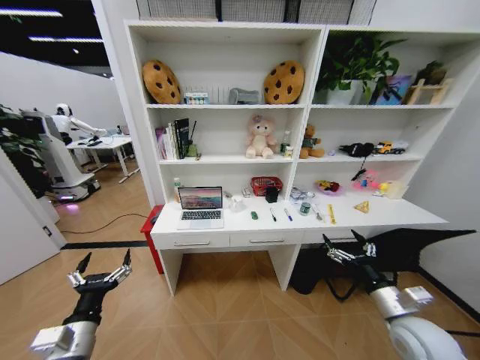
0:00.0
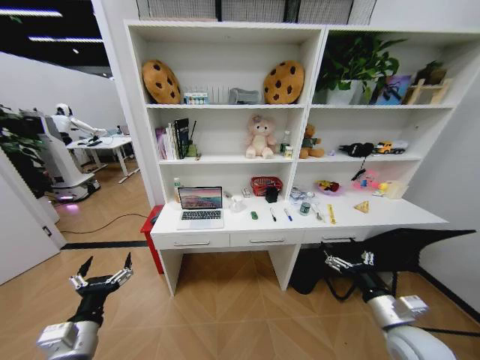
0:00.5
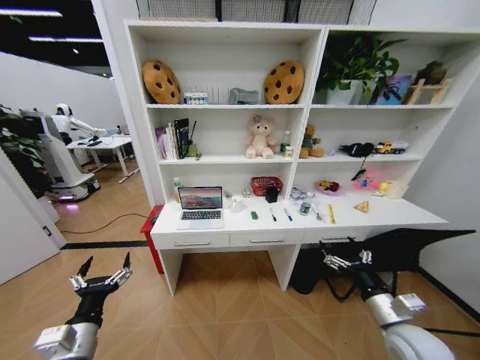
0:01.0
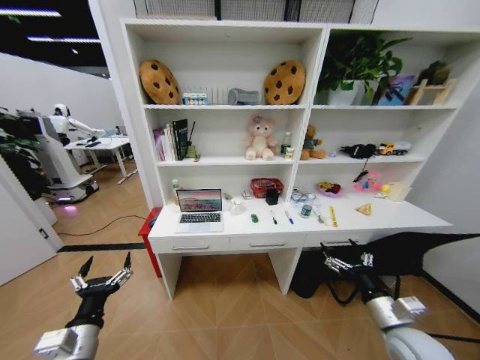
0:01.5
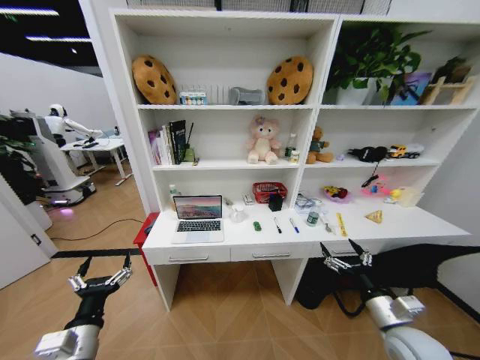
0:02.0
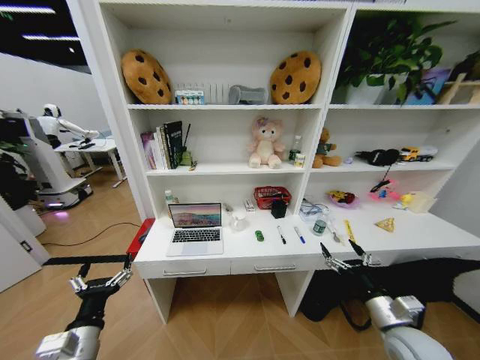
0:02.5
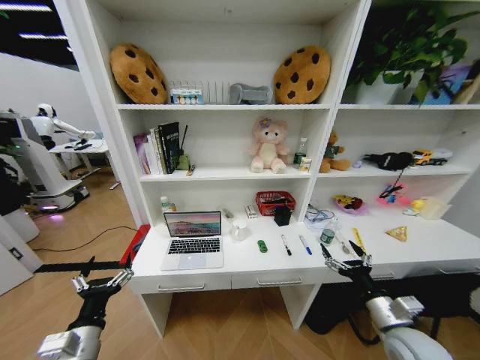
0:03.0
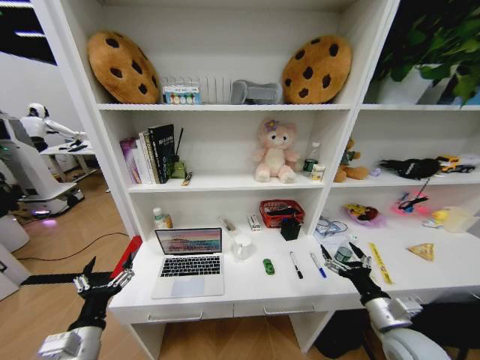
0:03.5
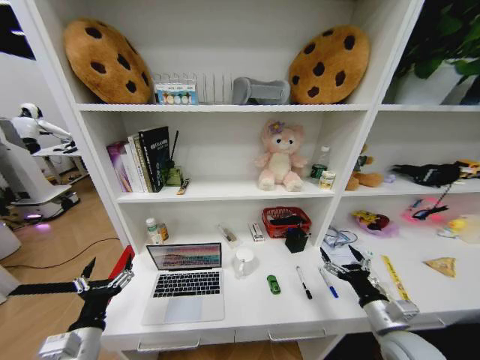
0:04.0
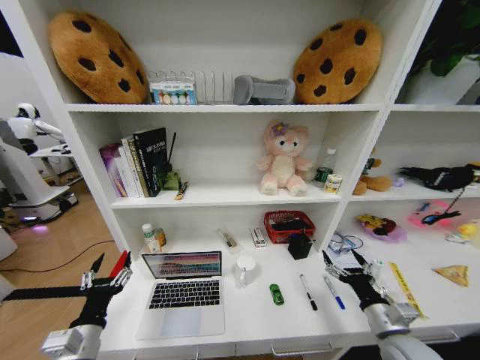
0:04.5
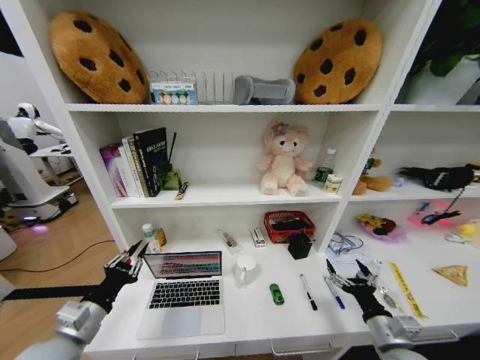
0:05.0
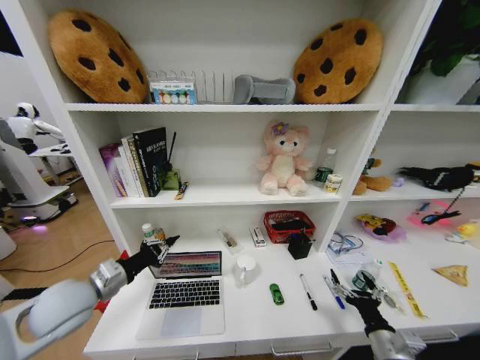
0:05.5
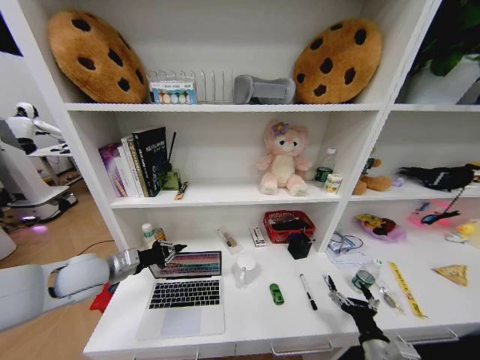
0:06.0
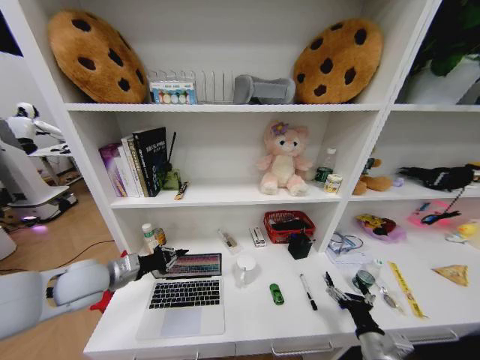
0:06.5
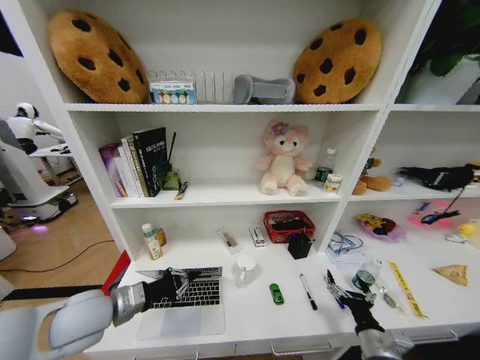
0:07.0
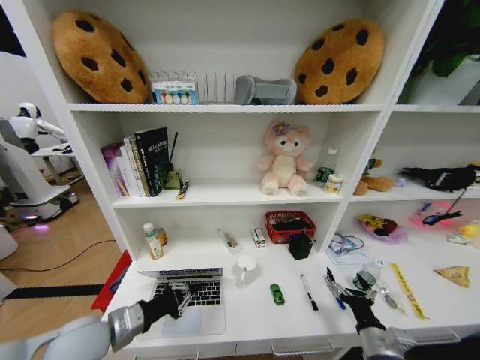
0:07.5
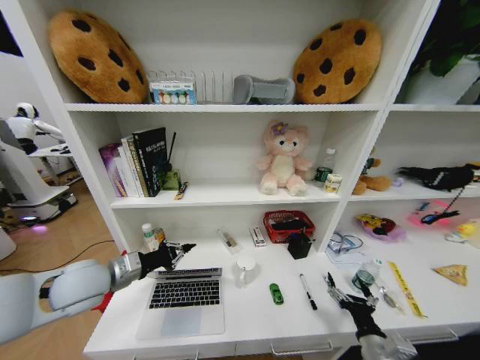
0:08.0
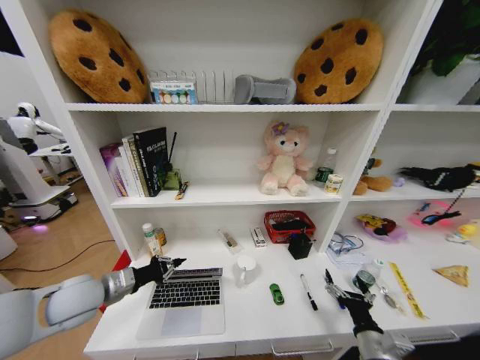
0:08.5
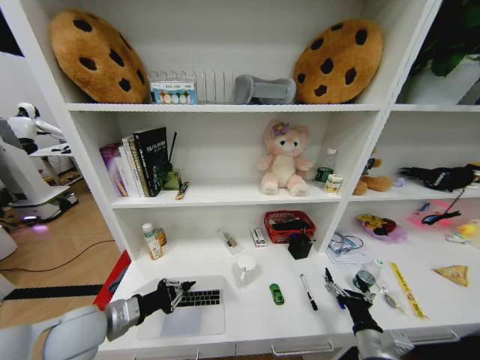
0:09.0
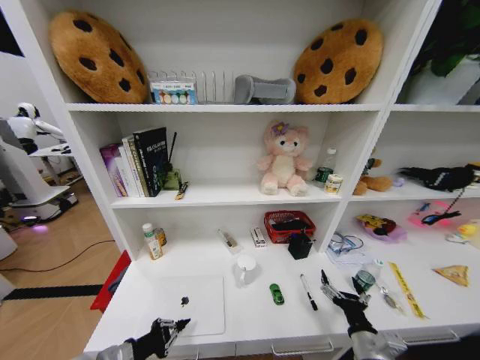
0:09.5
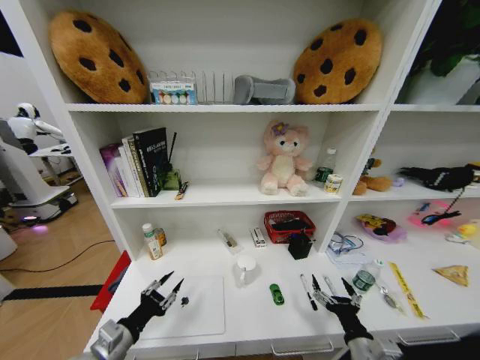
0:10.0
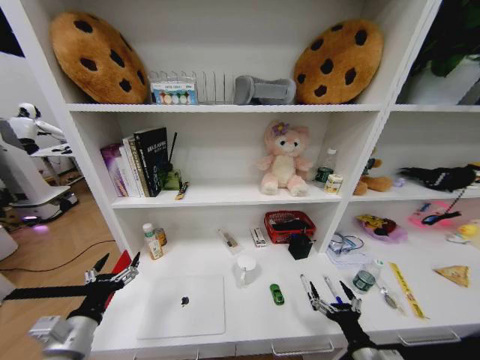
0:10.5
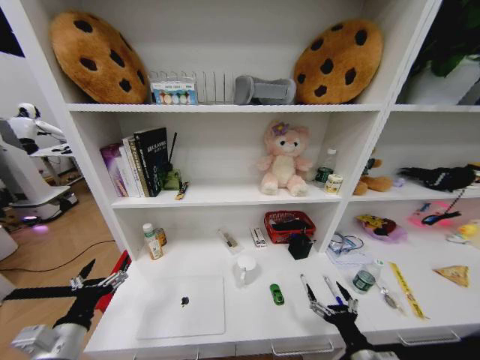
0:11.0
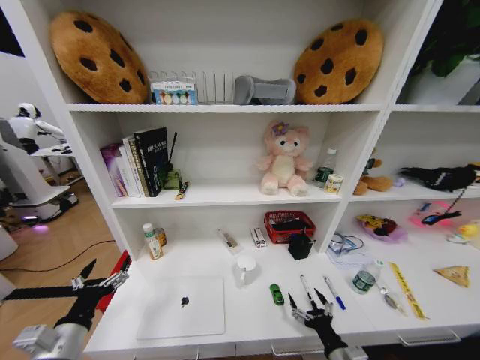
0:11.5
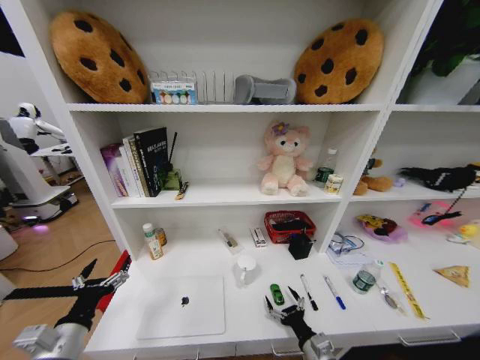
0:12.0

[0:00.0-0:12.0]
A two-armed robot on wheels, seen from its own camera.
Task of the whole recording: Organize the objects on the table.
0:04.0 to 0:06.0: The left gripper shifts some 20 cm forward and upward, and closes its fingers; the right gripper heads backward and downward, covering some 10 cm.
0:06.0 to 0:08.0: The left gripper reaches approximately 10 cm backward, then returns.
0:08.0 to 0:10.0: The left gripper goes approximately 20 cm backward and downward, and opens up.
0:10.0 to 0:12.0: The right gripper shifts roughly 10 cm downward and to the left. Meanwhile the left gripper ends up roughly 5 cm from where it was, and opens its fingers.

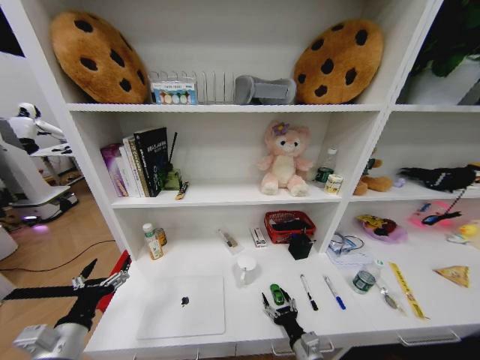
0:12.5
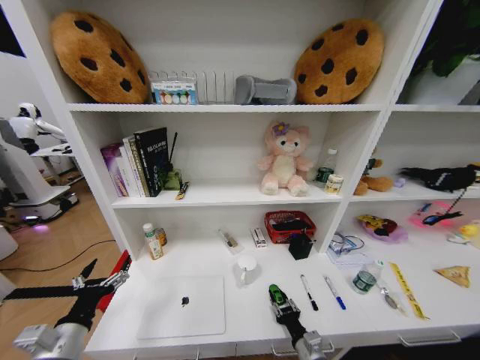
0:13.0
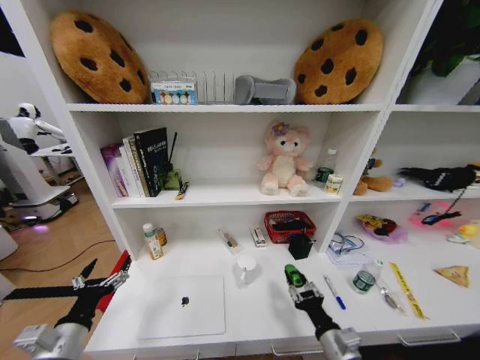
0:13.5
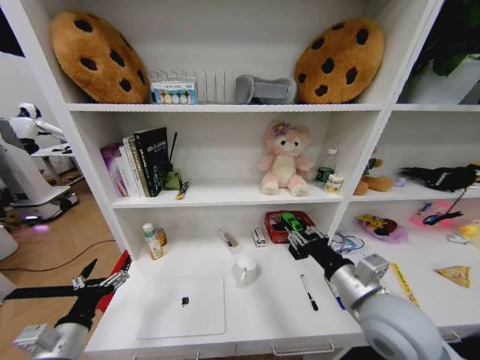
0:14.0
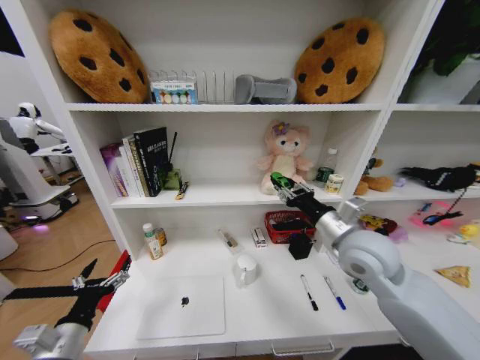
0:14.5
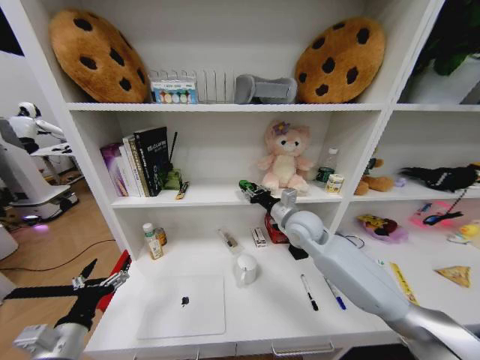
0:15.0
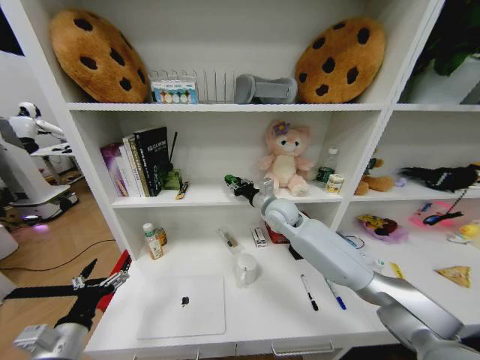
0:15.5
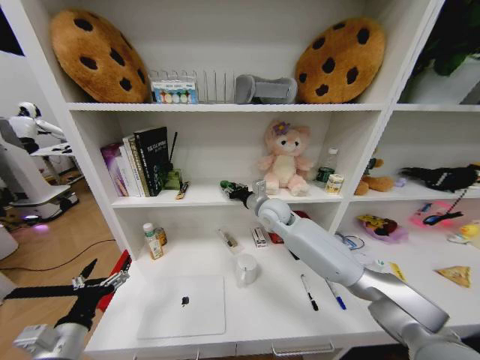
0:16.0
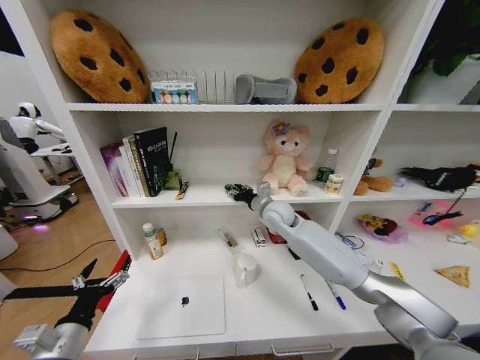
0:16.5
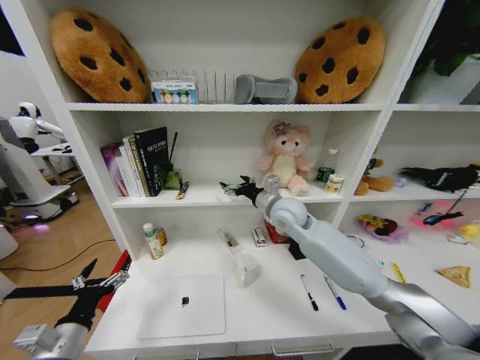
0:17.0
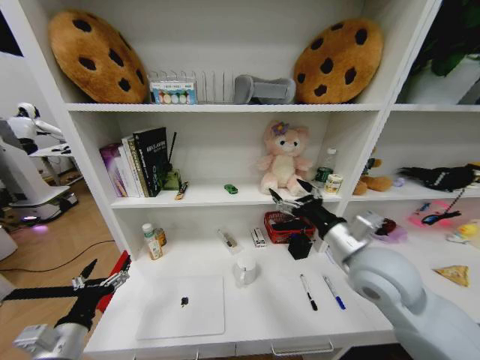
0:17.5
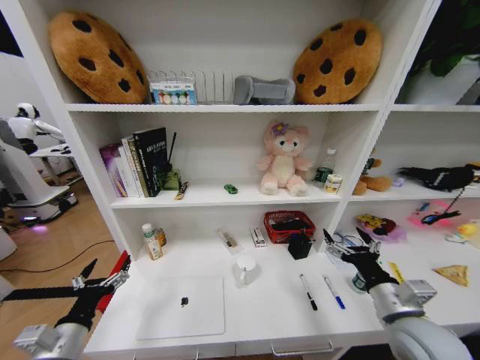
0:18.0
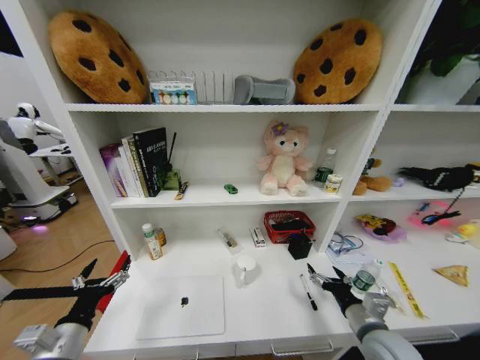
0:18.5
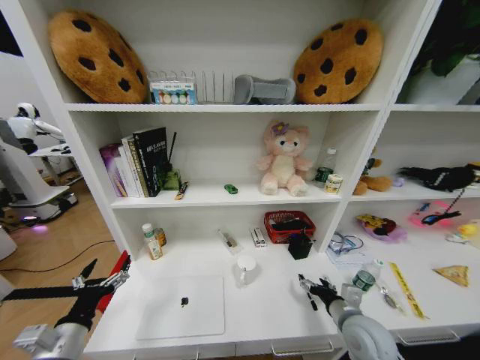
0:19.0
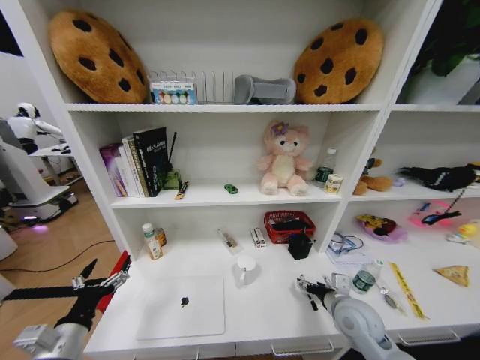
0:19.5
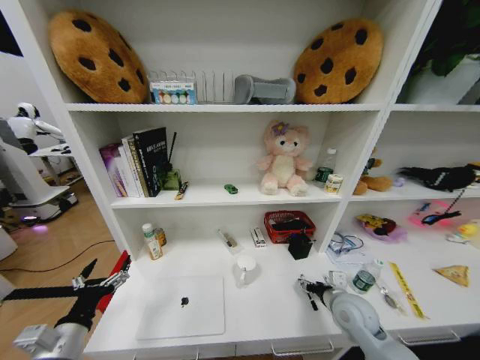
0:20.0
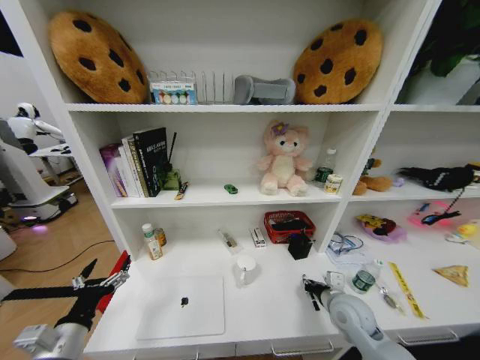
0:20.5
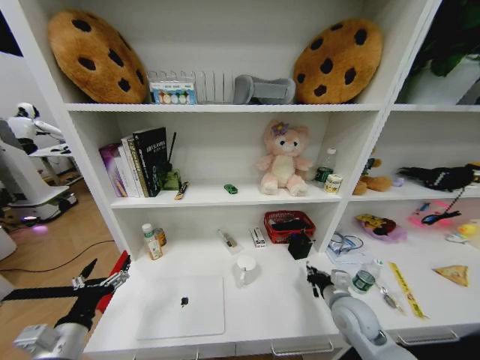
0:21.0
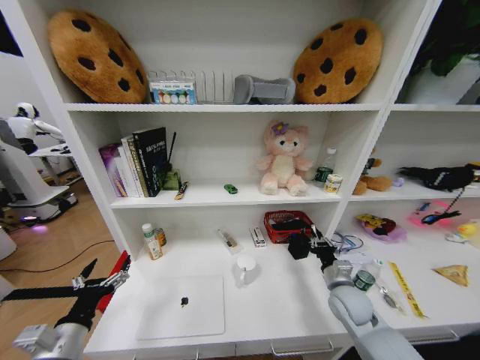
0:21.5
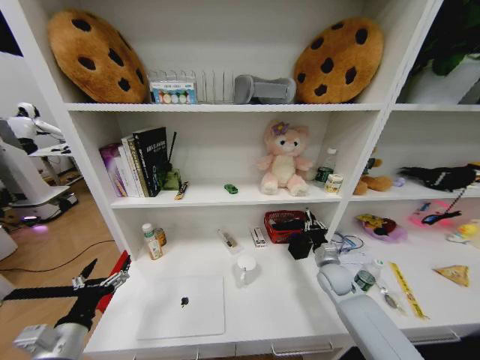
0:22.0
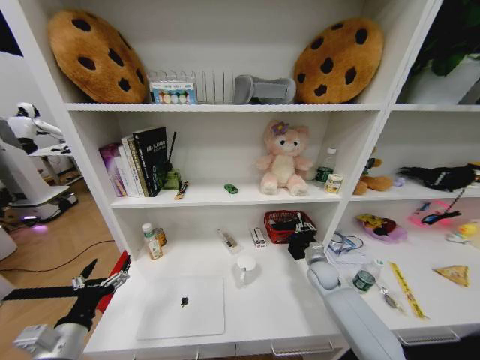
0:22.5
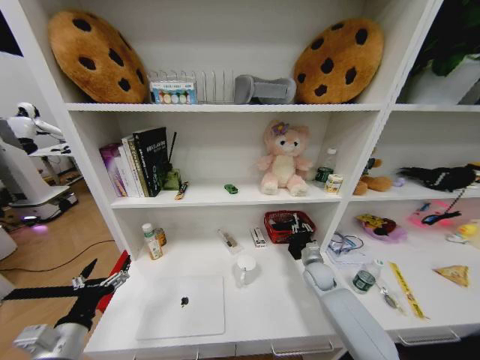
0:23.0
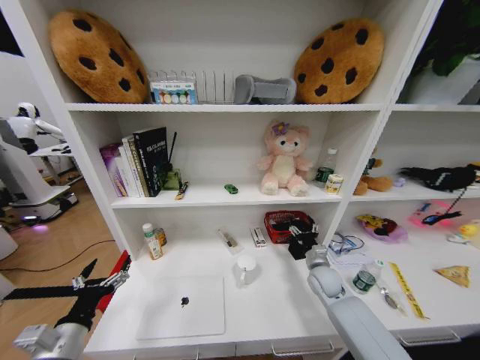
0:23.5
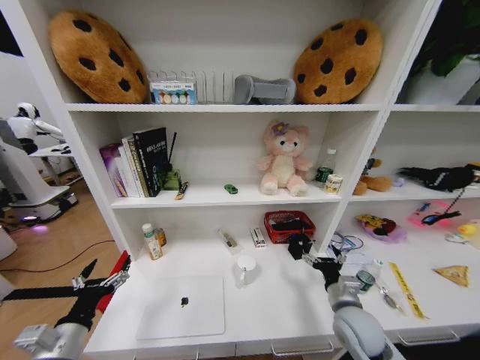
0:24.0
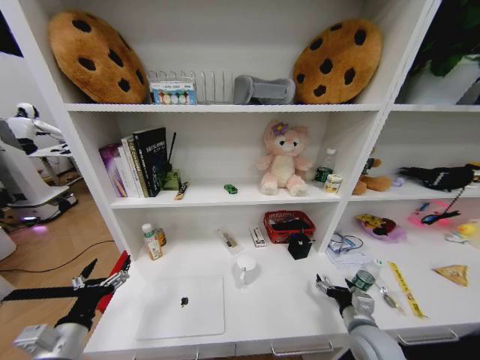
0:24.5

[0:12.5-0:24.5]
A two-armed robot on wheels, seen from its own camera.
Task of the whole recording: Organize the objects on the table.
0:12.5 to 0:14.5: The right gripper goes some 35 cm upward and forward, and closes up.
0:14.5 to 0:16.5: The right gripper heads forward and to the left, covering approximately 25 cm.
0:16.5 to 0:18.5: The right gripper is displaced backward, to the right and downward by some 40 cm, and opens up.
0:18.5 to 0:20.5: The right gripper travels forward by about 10 cm, and closes.
0:20.5 to 0:22.5: The right gripper is displaced forward and downward by some 15 cm.
0:22.5 to 0:24.5: The right gripper travels backward by roughly 20 cm, and opens up.

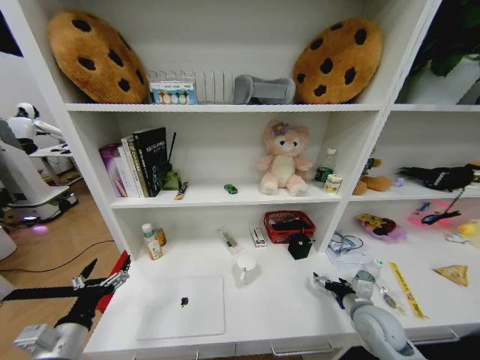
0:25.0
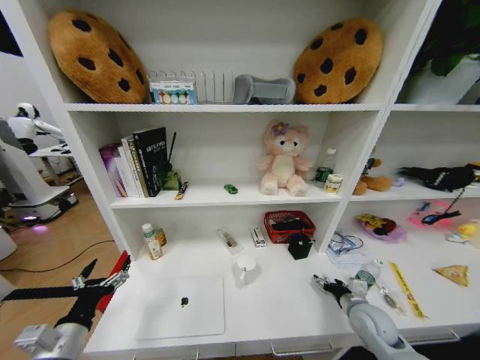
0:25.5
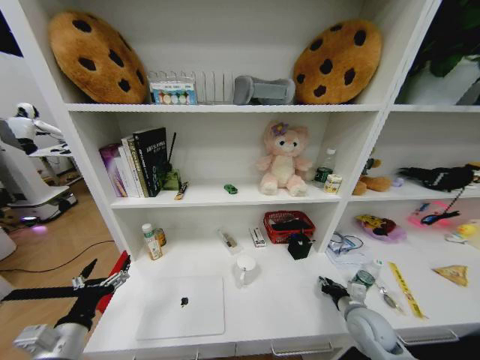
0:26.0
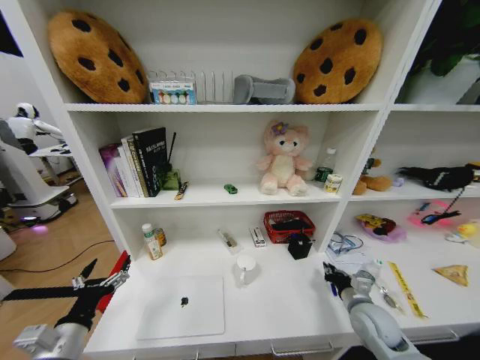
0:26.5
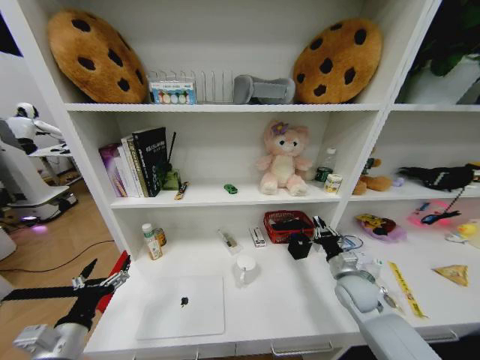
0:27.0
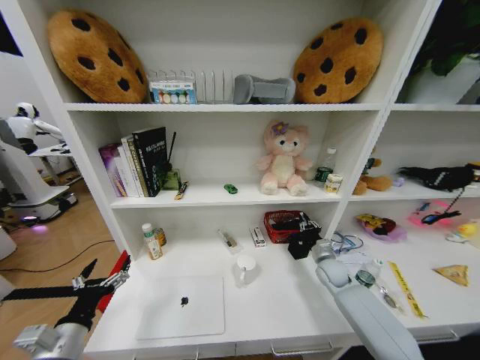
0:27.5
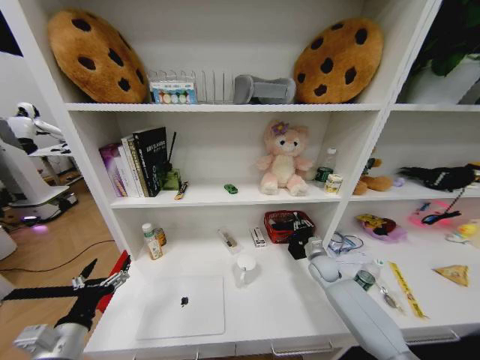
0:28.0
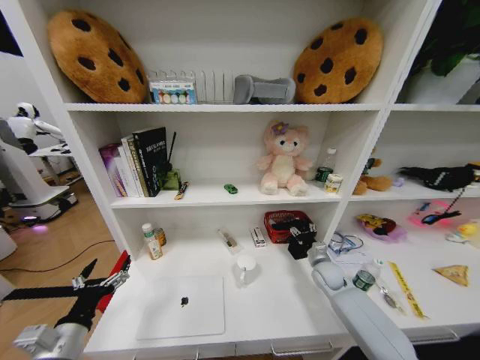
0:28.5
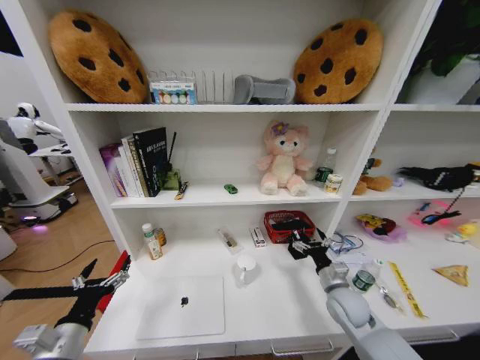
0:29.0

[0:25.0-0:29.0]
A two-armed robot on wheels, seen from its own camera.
Task of the whole recording: Organize the objects on the table.
0:25.0 to 0:27.0: The right gripper moves forward, approximately 10 cm, and closes up.
0:27.0 to 0:29.0: The right gripper moves approximately 10 cm forward and comes back, and opens up.
